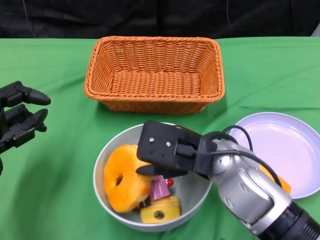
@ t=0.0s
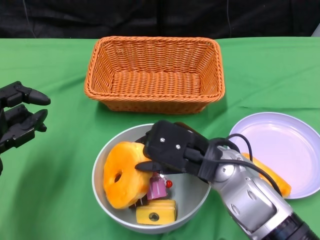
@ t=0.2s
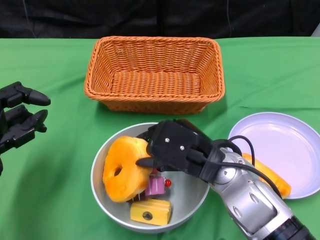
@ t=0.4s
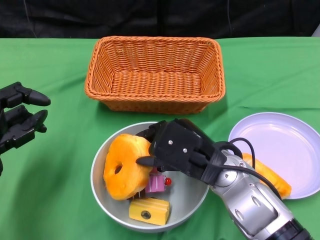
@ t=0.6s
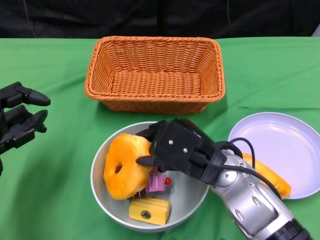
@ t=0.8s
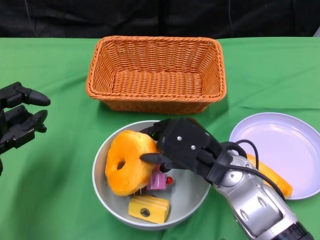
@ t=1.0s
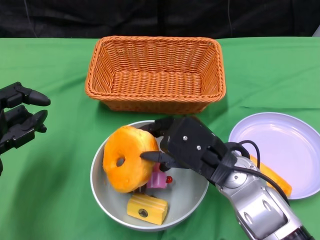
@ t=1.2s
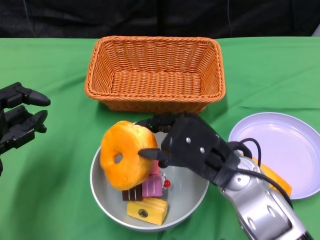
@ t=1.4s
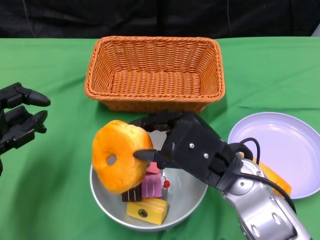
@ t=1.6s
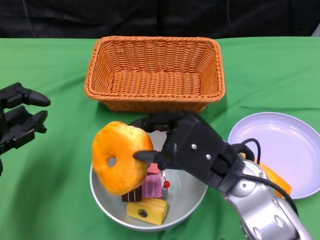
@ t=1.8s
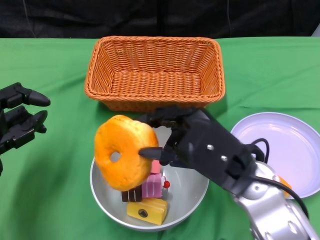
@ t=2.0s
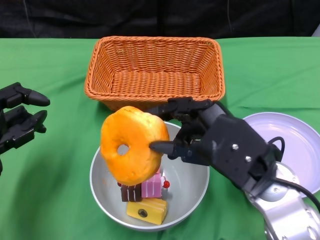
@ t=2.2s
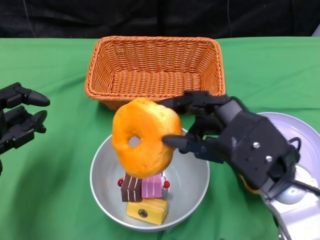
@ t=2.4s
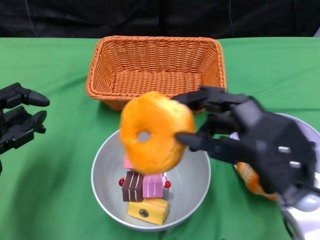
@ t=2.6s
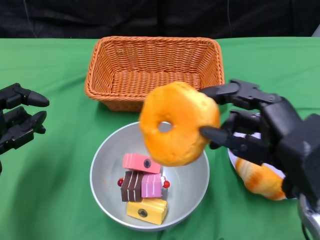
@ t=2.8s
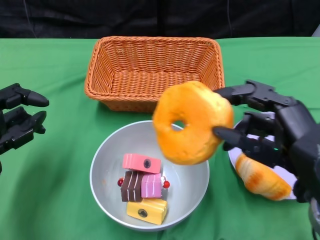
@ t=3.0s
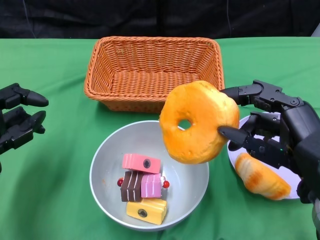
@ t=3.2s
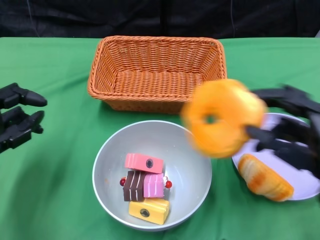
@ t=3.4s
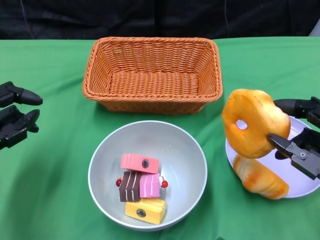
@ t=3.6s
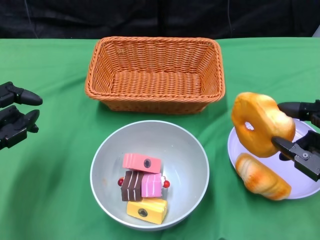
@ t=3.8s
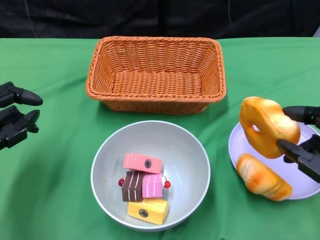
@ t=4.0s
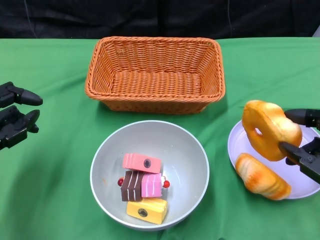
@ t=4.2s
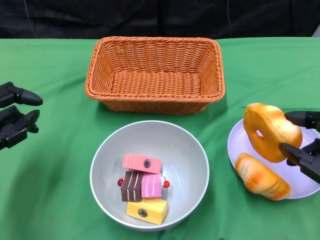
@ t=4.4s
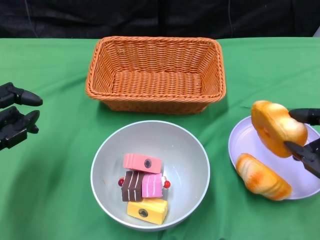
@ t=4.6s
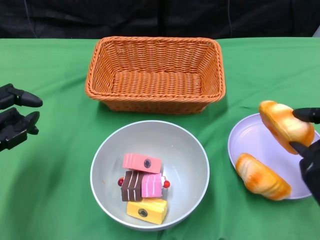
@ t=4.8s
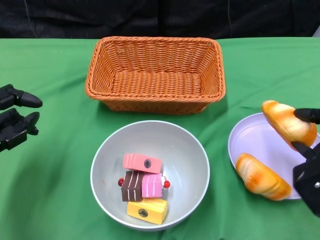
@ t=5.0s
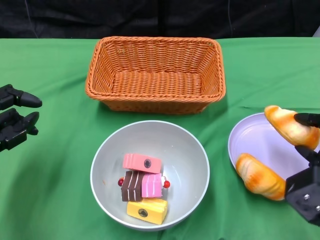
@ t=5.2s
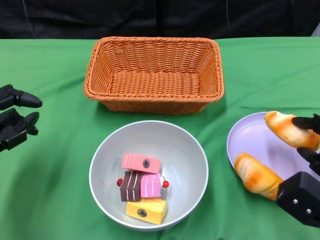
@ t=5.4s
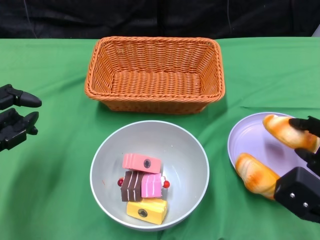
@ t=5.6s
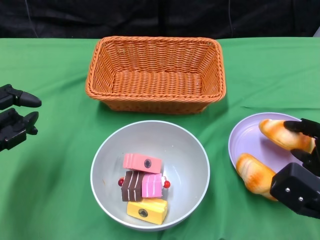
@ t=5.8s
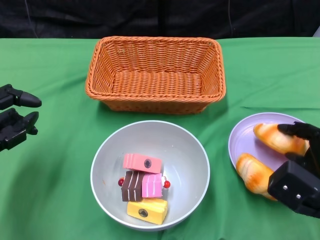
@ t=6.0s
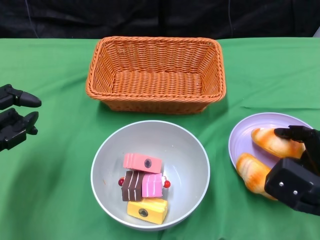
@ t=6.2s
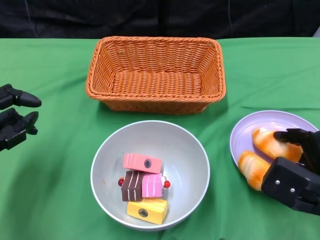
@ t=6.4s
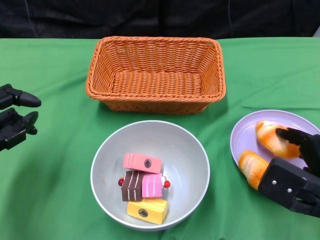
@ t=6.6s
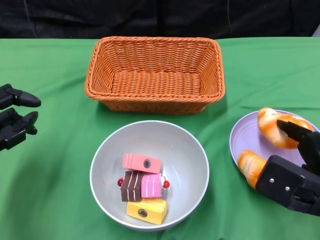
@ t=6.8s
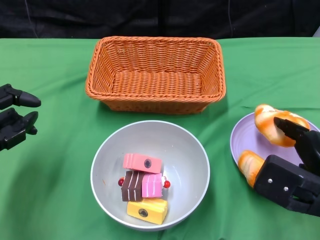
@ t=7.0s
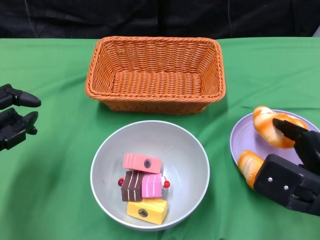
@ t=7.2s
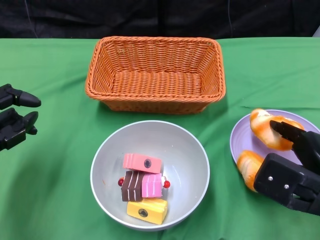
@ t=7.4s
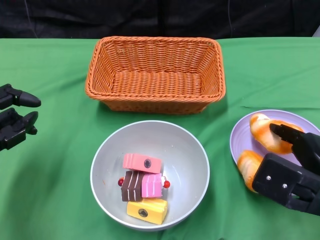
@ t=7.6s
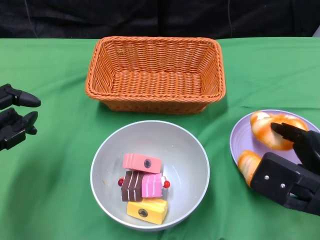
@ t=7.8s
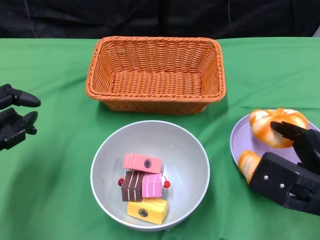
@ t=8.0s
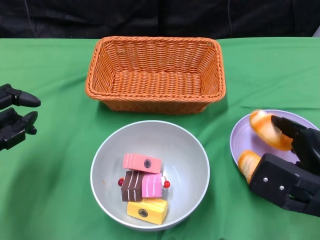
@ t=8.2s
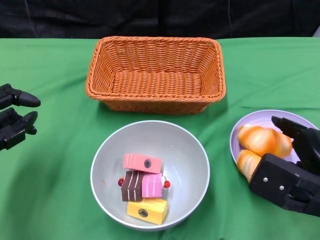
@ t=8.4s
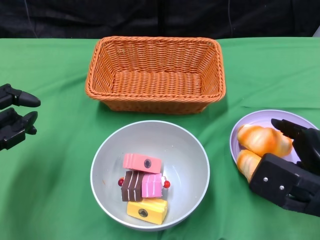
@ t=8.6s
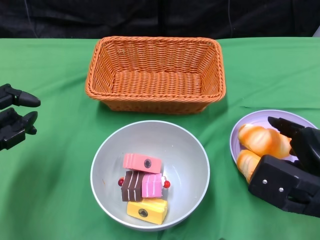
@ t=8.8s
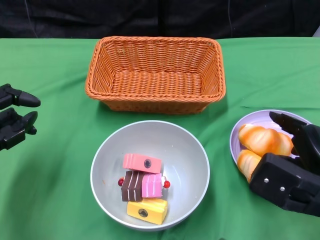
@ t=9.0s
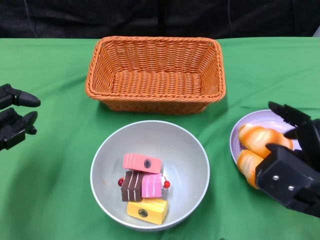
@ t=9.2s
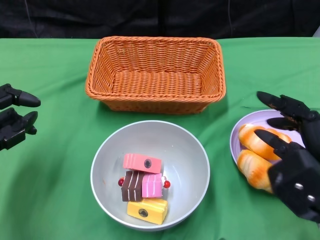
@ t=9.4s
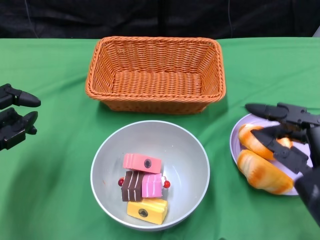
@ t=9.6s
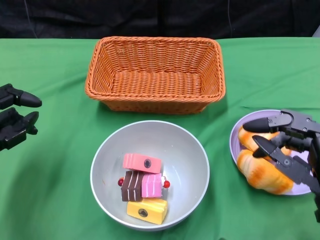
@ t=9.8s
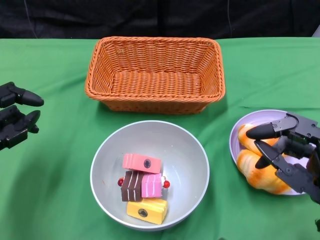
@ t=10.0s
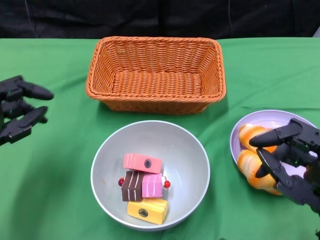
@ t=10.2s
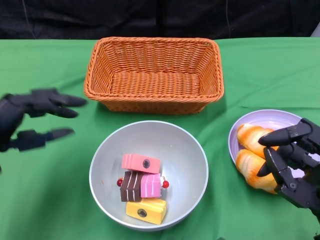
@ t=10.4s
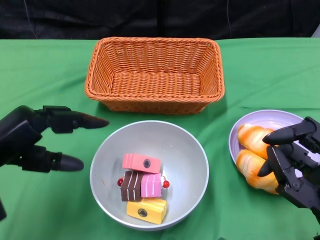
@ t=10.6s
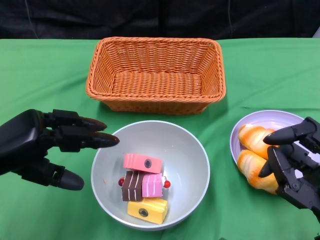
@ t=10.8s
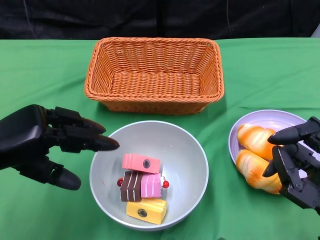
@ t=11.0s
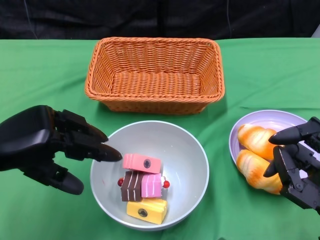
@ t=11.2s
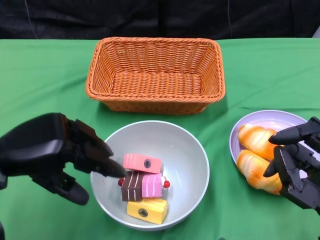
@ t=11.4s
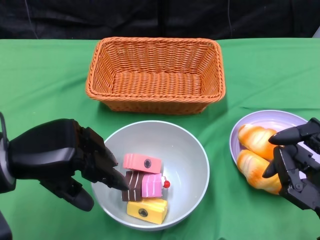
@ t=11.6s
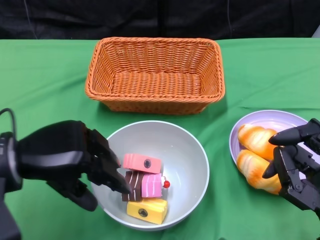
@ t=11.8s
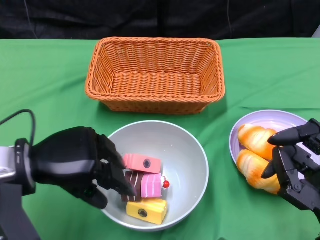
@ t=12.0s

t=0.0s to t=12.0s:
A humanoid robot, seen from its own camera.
Step, t=0.0s to t=9.0s: Pick up the bread with the right gripper and place it on the plate.
t=1.6s to t=3.0s: The right hand moves to the right, roughly 10 cm.
t=3.0s to t=4.4s: The right hand moves to the right and downward, some 10 cm.
t=4.4s to t=6.0s: The right hand travels downward by roughly 5 cm.
t=6.0s to t=7.6s: The right hand shifts by about 5 cm.
t=7.6s to t=9.0s: There are only small adjustments of the hands.
t=9.0s to t=10.4s: The right hand is displaced backward by roughly 5 cm.
t=10.4s to t=12.0s: The left hand goes approximately 5 cm to the right.

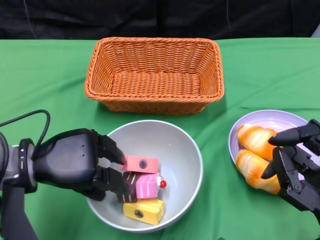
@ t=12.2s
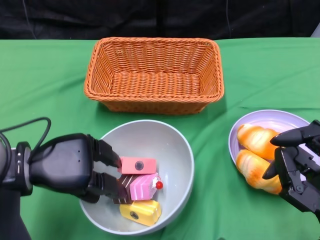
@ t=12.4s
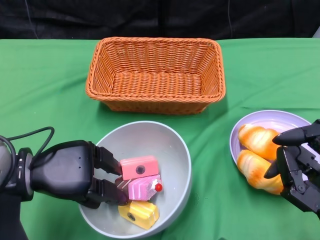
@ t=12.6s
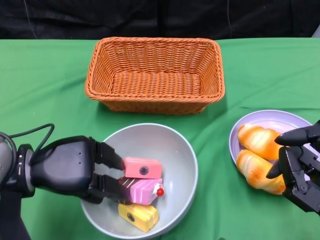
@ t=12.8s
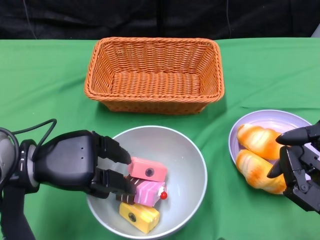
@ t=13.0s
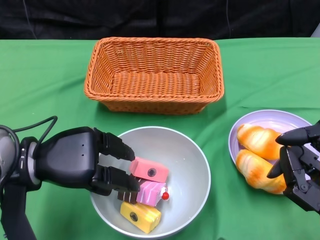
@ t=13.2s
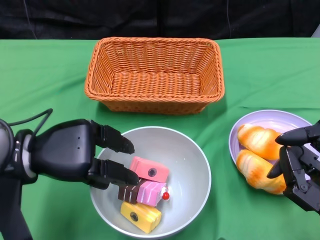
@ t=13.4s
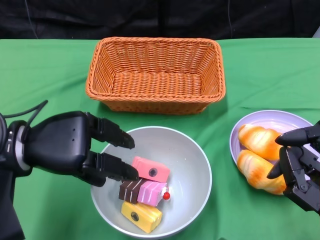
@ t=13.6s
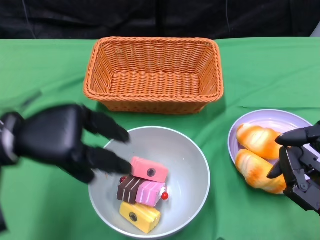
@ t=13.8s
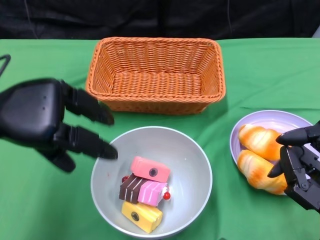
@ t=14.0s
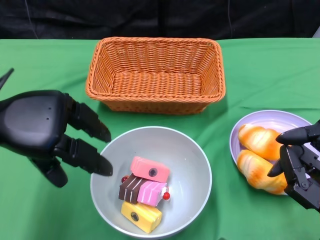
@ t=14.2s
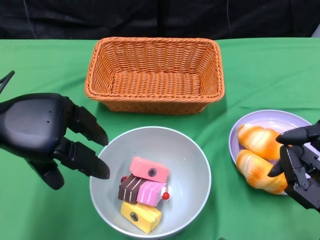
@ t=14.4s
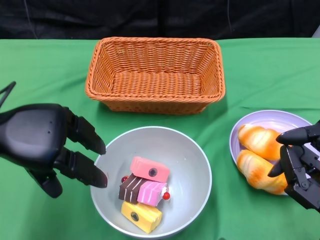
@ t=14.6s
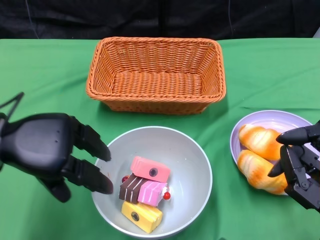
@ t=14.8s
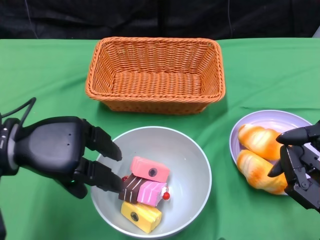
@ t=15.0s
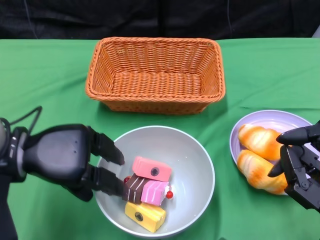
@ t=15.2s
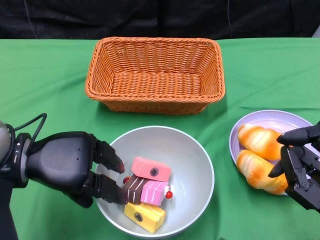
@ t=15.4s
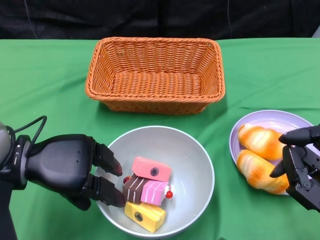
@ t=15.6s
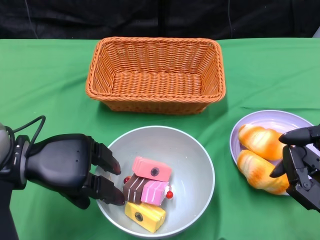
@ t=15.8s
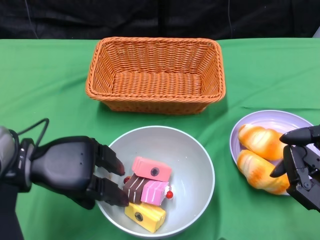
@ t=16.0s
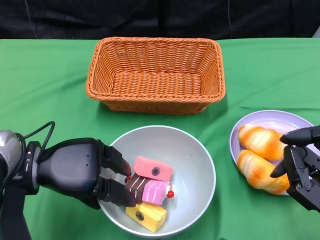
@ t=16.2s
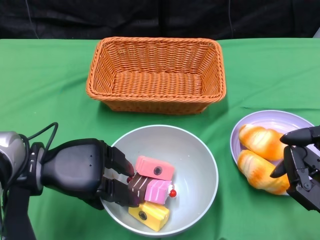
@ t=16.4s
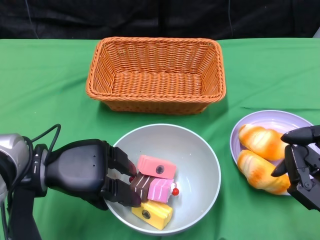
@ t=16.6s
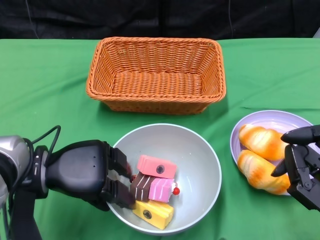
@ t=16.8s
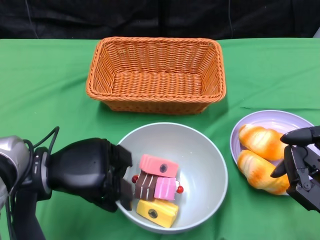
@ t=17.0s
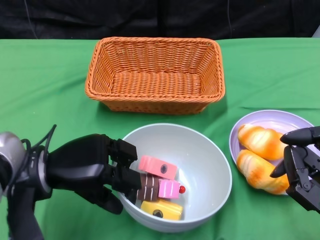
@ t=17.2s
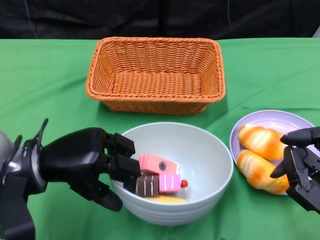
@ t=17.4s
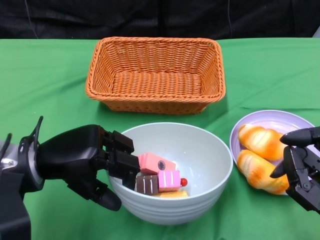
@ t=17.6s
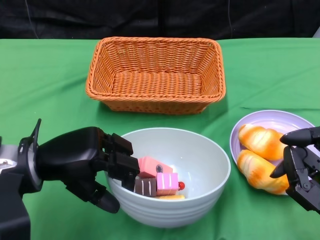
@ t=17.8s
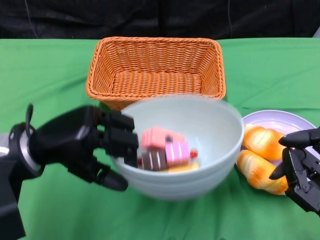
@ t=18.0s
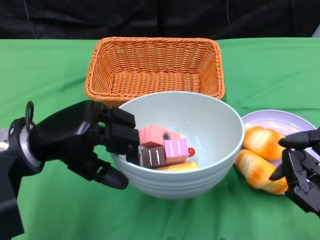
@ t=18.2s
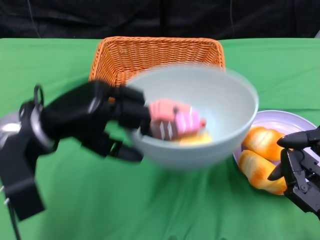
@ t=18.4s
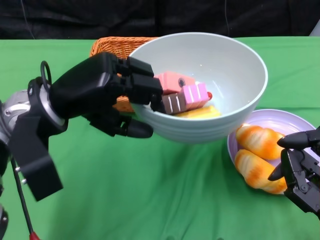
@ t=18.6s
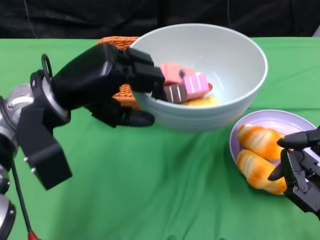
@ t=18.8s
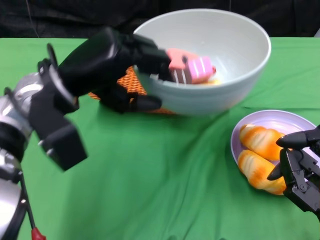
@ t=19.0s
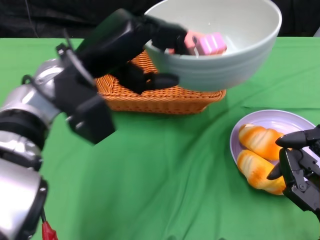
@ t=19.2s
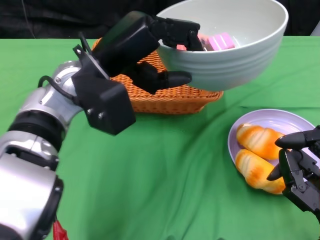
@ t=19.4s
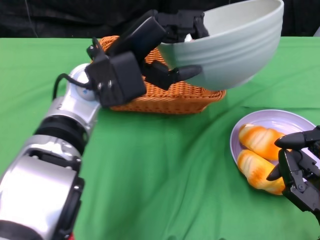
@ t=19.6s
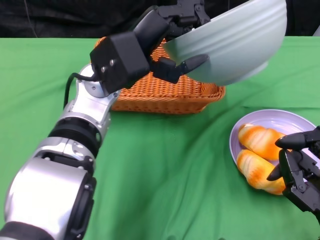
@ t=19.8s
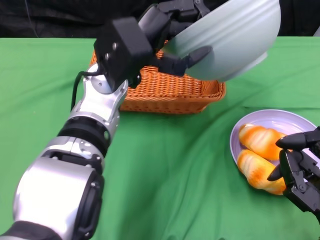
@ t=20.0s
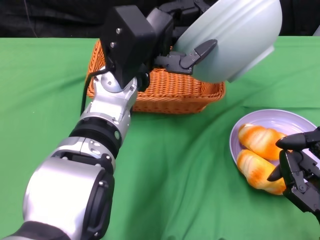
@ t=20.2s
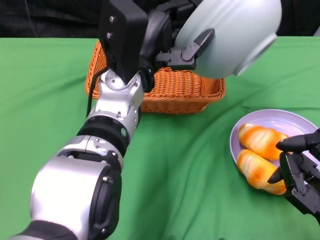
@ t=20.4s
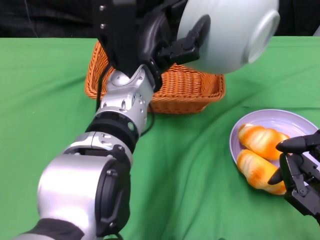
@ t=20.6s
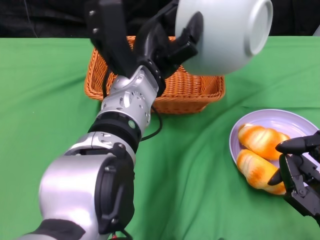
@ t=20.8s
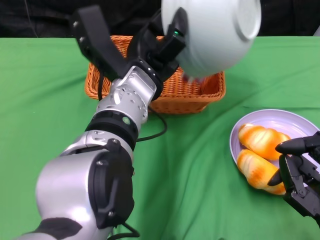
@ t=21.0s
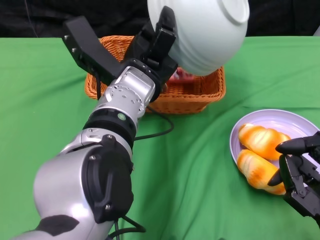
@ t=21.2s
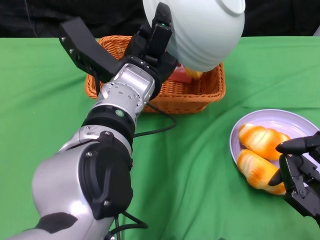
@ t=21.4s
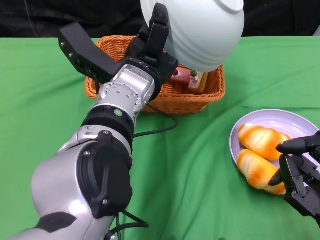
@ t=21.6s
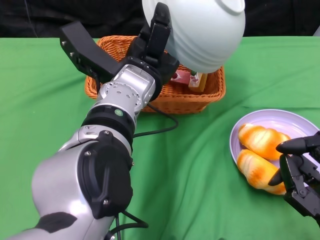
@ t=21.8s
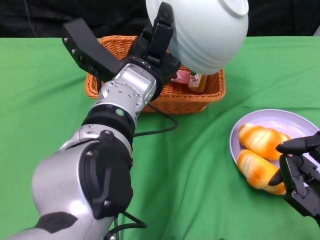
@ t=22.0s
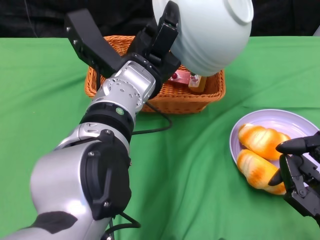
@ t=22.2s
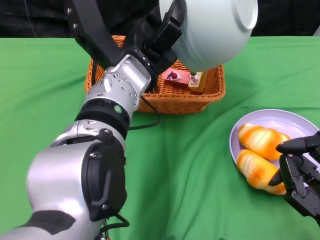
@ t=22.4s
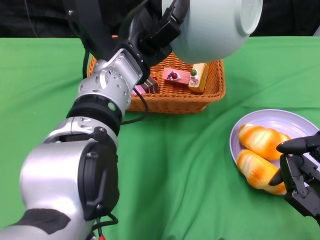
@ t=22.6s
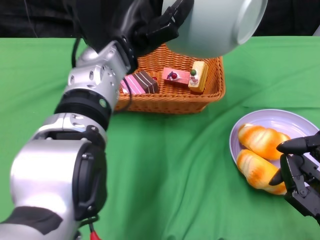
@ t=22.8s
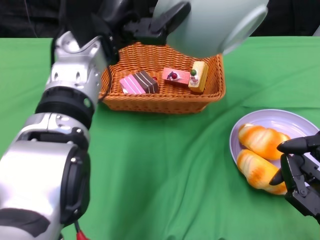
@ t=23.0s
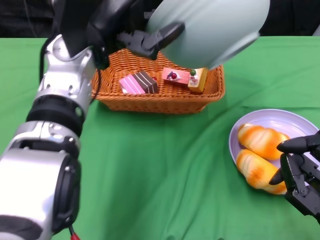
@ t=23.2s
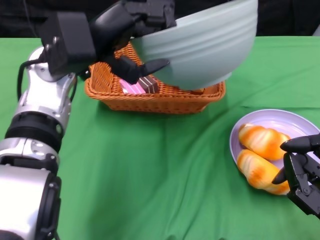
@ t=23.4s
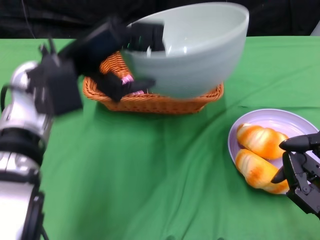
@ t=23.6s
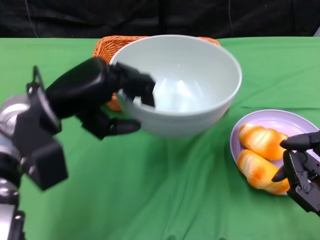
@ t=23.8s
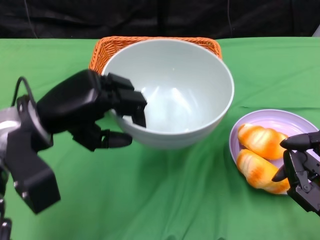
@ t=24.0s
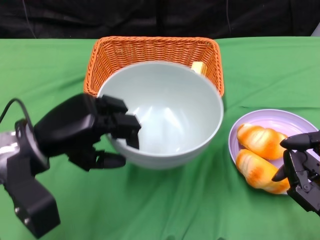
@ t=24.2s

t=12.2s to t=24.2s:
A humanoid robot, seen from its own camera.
Step, t=12.2s to t=18.0s: Grasp the bowl with the left gripper.
Step, t=18.2s to t=22.4s: Pour the cake into the basket with the left gripper.
t=15.2s to t=16.6s: The hands move only a little.
t=16.6s to t=18.2s: The left hand is displaced upward by some 5 cm.
t=18.2s to t=19.8s: The left hand travels to the right, forward and upward by some 15 cm.
t=22.6s to t=24.2s: The left hand moves to the left, backward and downward, roughly 15 cm.
